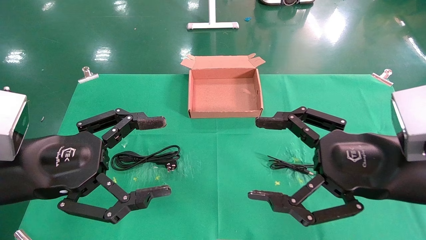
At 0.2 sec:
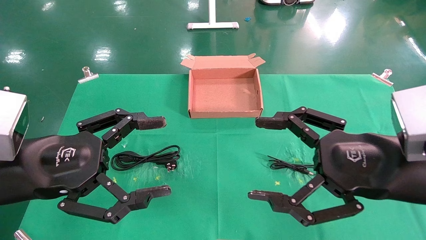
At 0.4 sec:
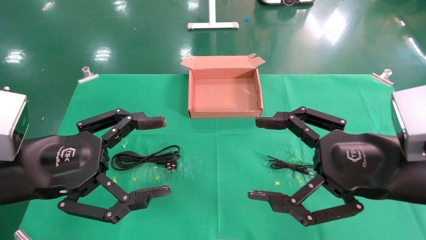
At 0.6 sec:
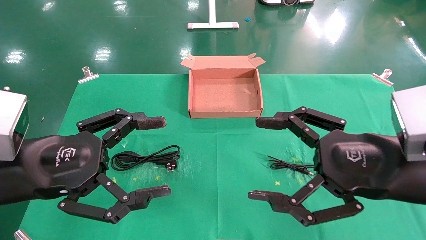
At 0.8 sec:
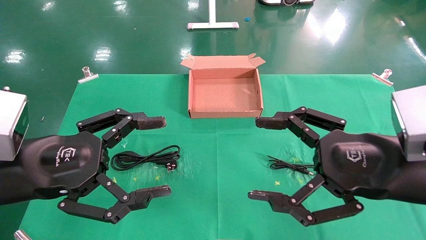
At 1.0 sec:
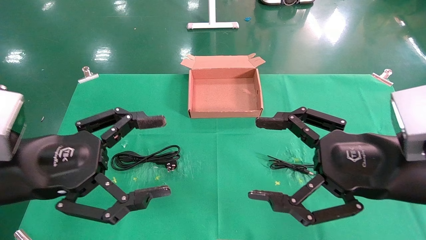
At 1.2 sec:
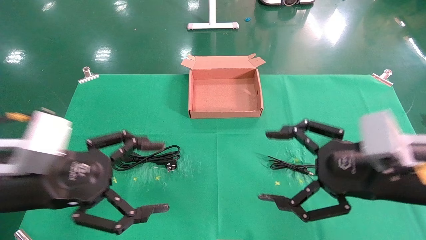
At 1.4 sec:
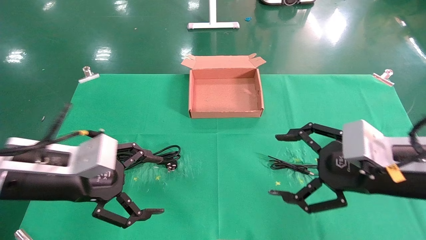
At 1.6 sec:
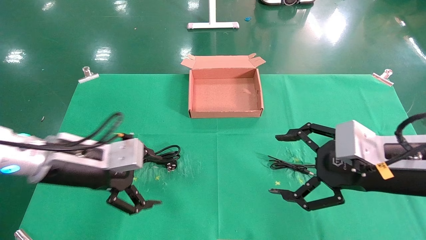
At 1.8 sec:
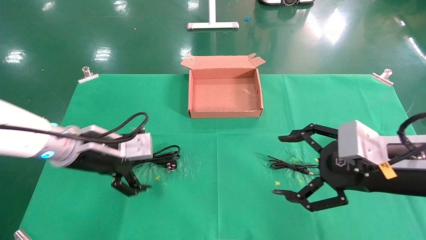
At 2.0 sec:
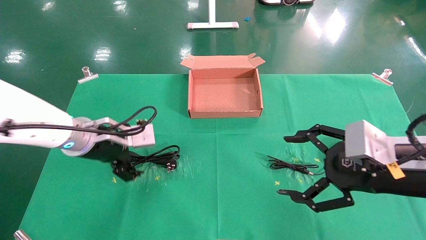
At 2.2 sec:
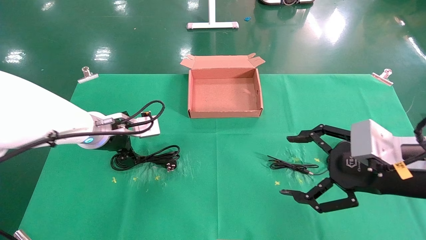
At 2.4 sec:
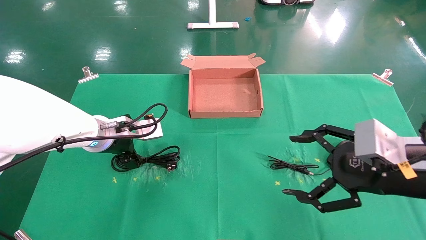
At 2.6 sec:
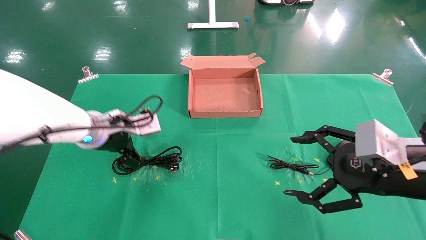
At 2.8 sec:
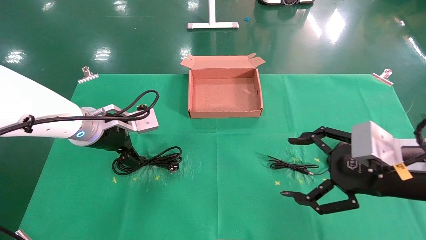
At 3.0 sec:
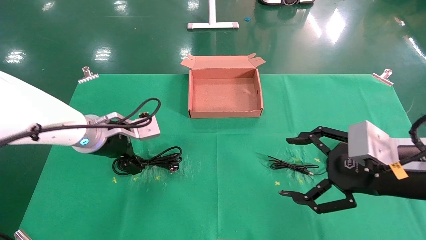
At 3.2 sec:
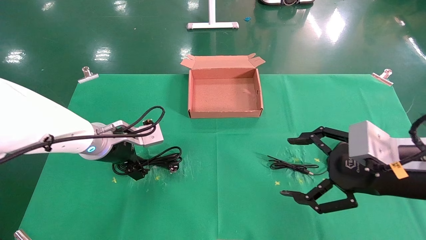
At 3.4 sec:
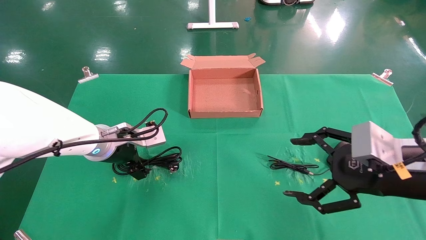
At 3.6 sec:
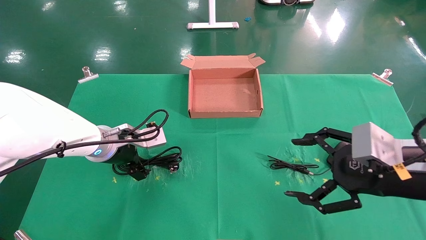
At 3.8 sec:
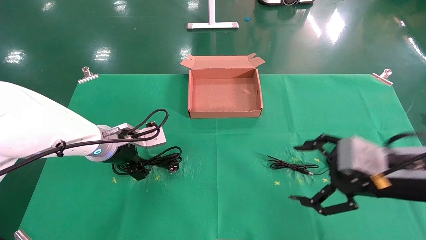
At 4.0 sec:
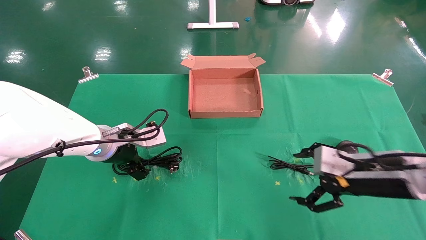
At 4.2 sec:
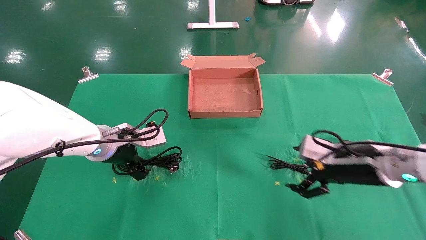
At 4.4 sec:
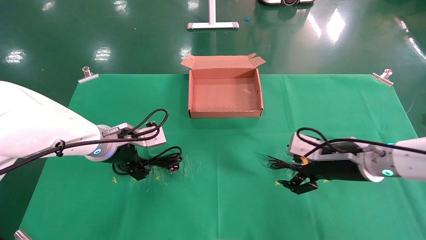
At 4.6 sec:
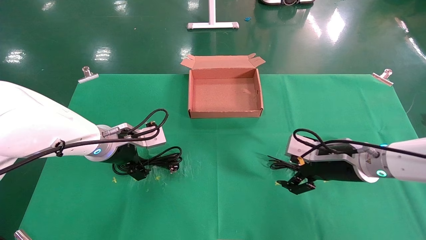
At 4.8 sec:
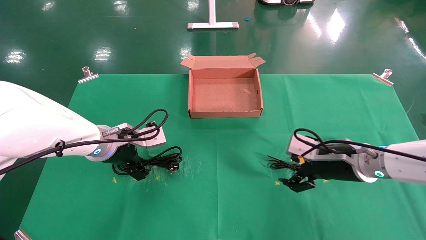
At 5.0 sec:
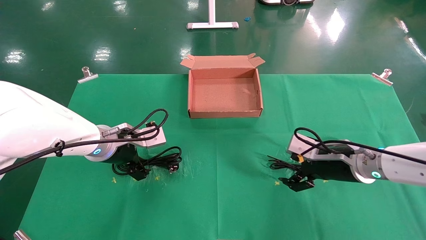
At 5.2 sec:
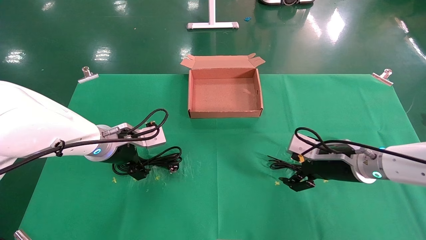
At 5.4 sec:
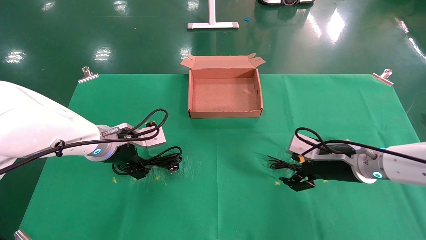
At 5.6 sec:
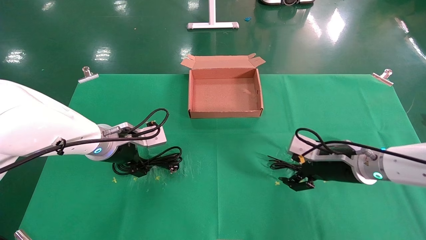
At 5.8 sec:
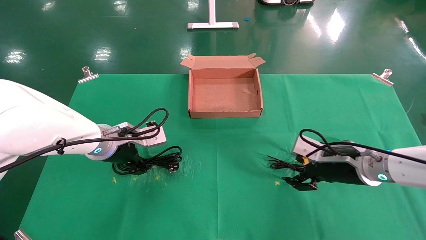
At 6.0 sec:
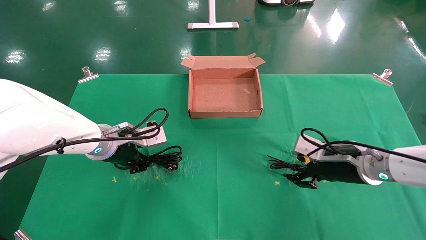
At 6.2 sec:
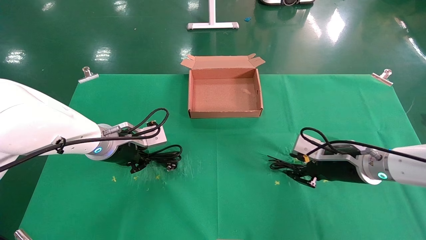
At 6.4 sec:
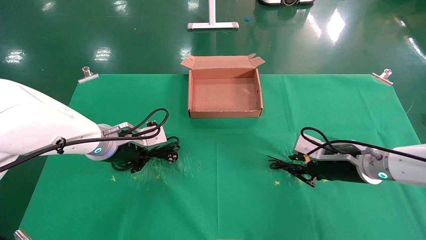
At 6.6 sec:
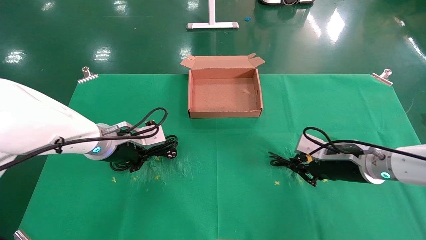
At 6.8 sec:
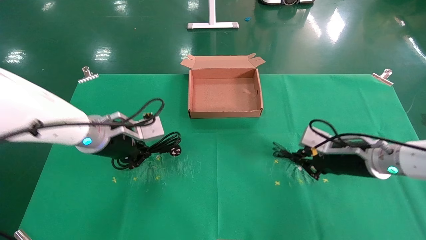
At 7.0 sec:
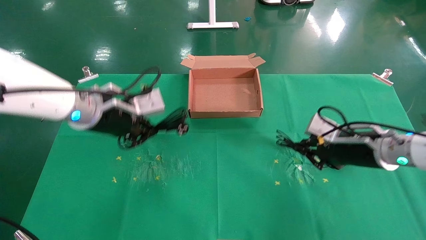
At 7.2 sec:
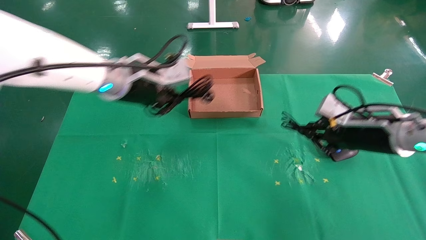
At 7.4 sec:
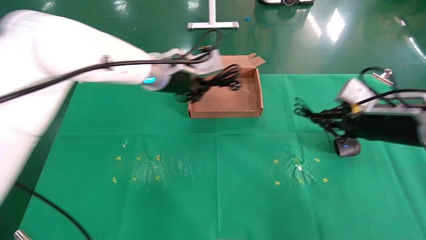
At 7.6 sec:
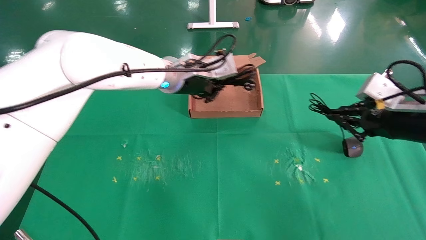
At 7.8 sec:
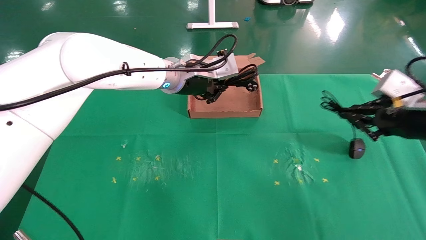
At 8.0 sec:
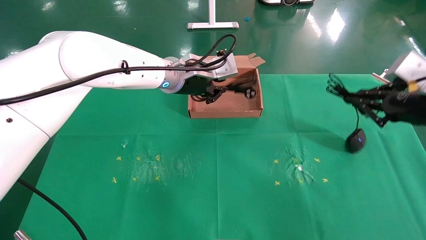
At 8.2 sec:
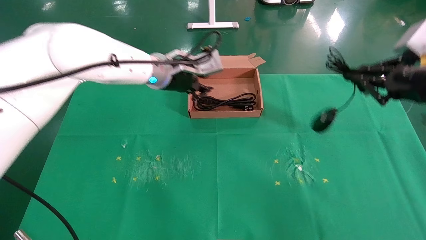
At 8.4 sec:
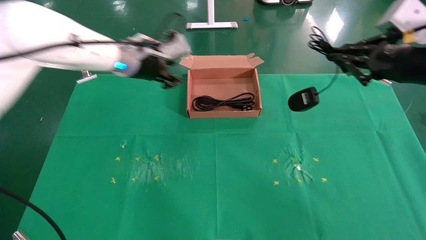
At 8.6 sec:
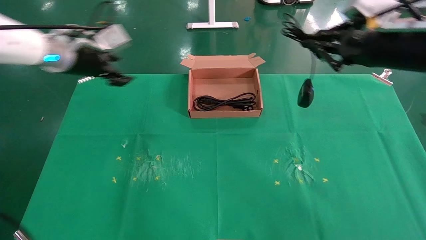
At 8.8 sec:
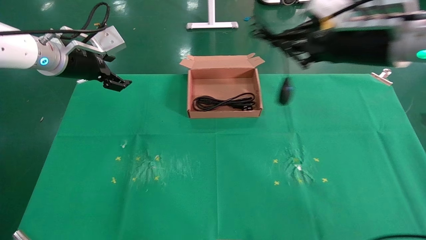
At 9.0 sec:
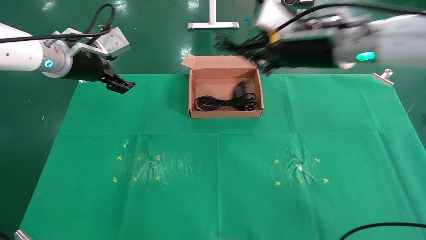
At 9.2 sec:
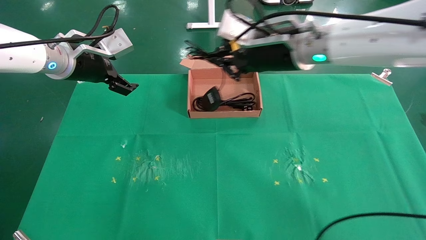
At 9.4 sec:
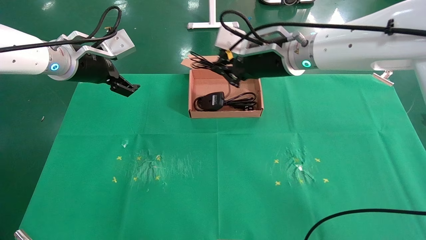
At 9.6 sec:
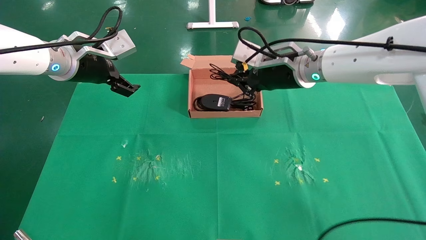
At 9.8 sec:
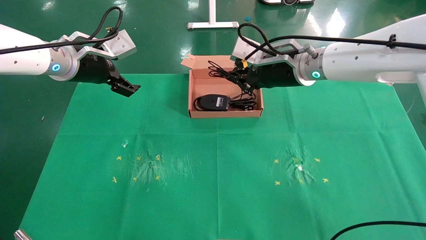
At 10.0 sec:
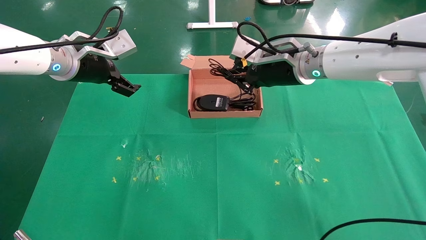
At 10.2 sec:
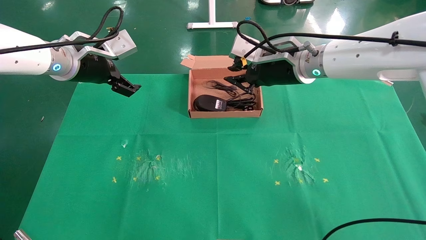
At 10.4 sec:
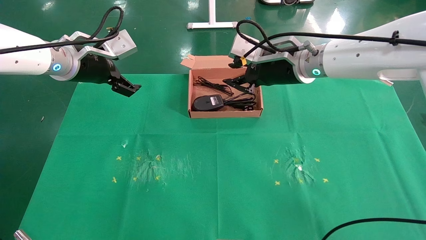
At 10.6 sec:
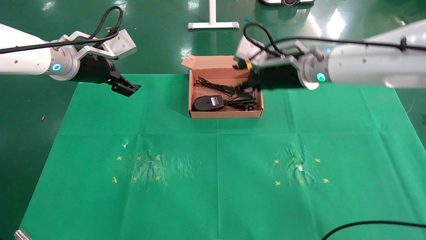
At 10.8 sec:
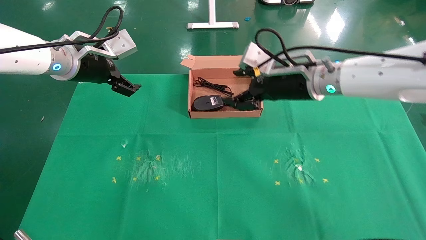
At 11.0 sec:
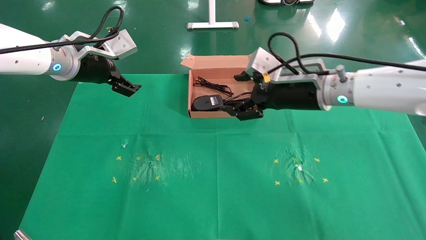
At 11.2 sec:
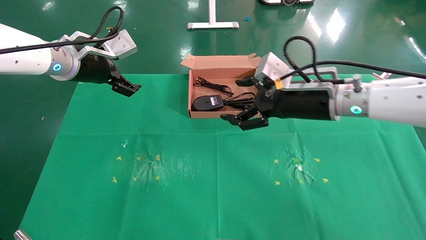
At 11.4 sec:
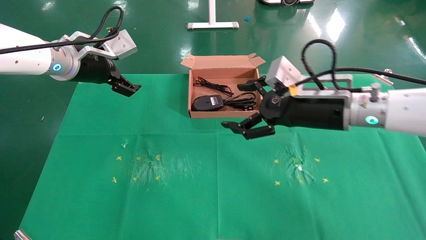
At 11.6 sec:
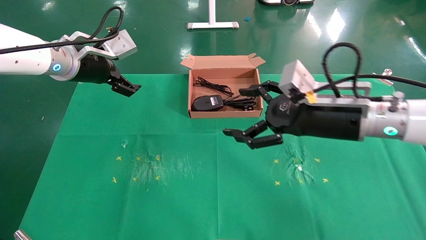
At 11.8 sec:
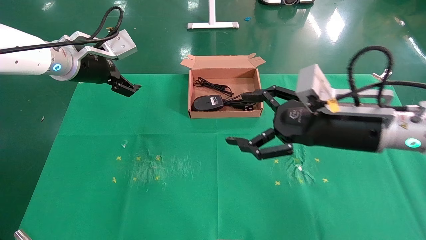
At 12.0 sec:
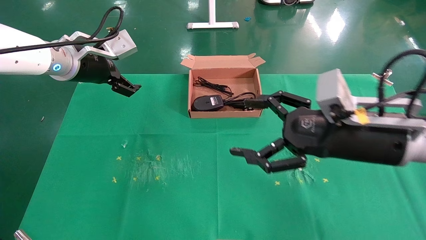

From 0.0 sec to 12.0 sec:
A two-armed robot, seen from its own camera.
Task of the whole recording: grasp data cable left put into box grasp mouse right put into box.
Step, from 1.4 sec to 6.8 sec: Simultaneously pick up the mouse and power cord from the accessory packaging area.
Step, from 7.0 sec to 10.2 sec: Place the mouse and power cord into the box.
From 0.0 sec to 1.6 sec: The left gripper goes about 10 cm forward.
From 1.6 sec to 3.0 sec: The left gripper shifts approximately 5 cm forward.
From 3.0 sec to 4.4 sec: The right gripper goes some 10 cm forward and downward.
From 4.4 sec to 6.0 sec: The left gripper closes up.
From 6.0 sec to 7.6 sec: The left gripper heads to the right, upward and forward, covering roughly 20 cm, and closes up; the right gripper heads upward, to the right and backward, covering about 15 cm, and closes up.
From 7.6 sec to 9.0 sec: The left gripper heads to the left, covering roughly 20 cm, and opens, while the right gripper heads to the left and upward, covering approximately 20 cm.
From 9.0 sec to 10.4 sec: The right gripper is displaced forward by approximately 5 cm.
From 10.4 sec to 12.0 sec: The right gripper heads backward, to the right and downward, covering roughly 20 cm, and opens up.

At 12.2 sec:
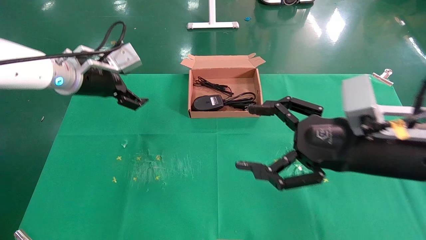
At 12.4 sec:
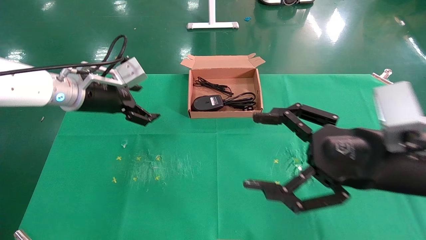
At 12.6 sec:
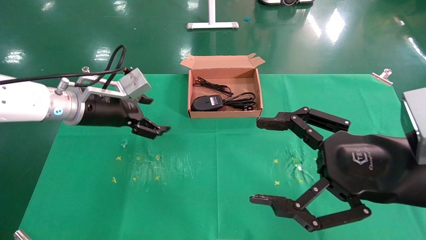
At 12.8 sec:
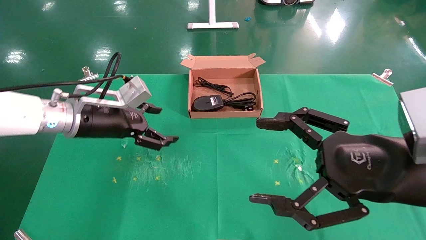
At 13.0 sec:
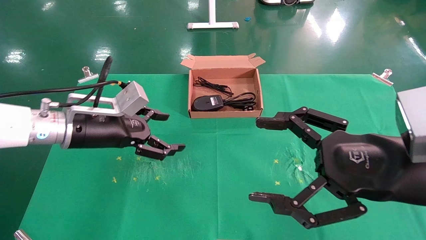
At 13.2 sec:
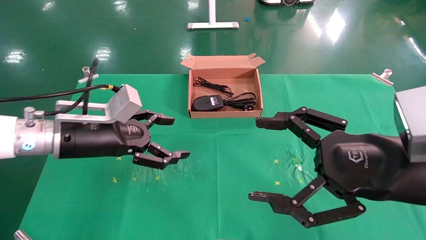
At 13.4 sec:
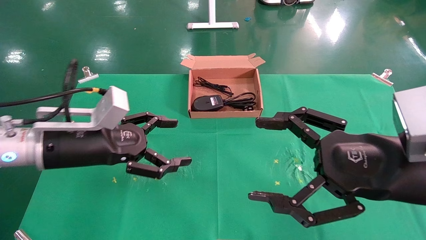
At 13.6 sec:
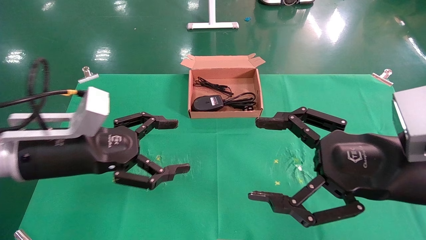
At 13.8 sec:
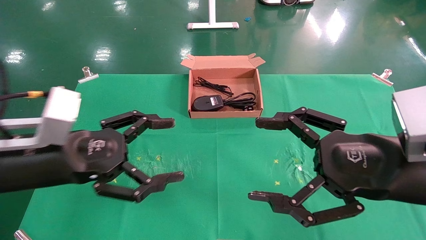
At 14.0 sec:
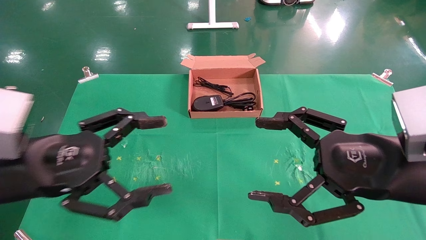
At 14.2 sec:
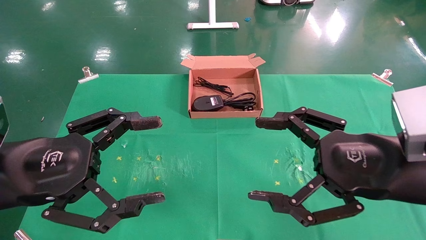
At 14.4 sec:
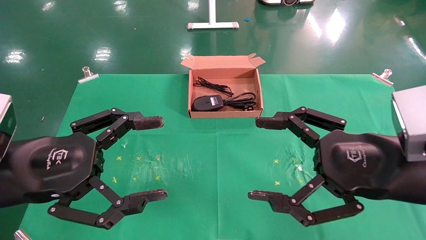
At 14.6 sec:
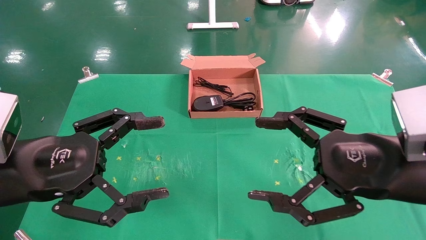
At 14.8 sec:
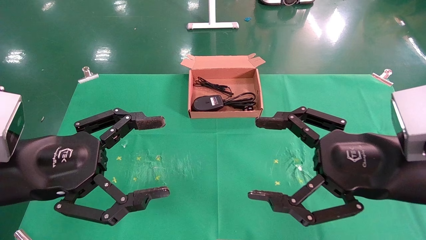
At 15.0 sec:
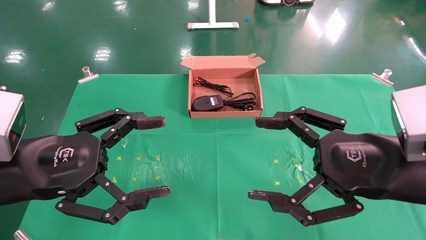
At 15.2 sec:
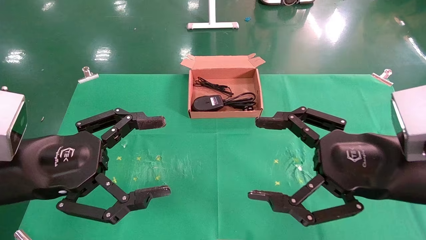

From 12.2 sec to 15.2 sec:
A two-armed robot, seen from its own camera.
Task of the whole recording: grasp data cable left put into box grasp mouse right put into box.
From 12.2 sec to 13.8 sec: The left gripper goes about 20 cm backward.
From 13.8 sec to 15.2 sec: The grippers move only a little.
